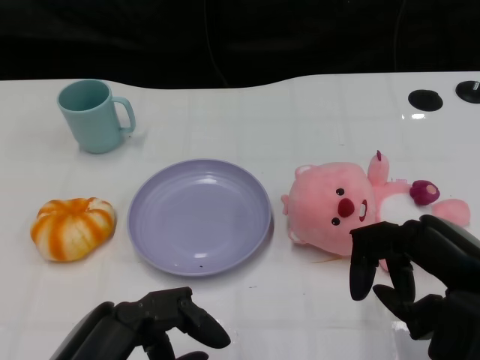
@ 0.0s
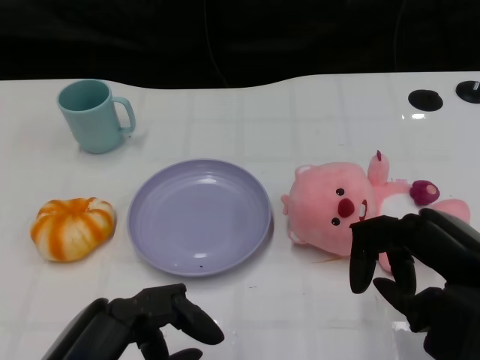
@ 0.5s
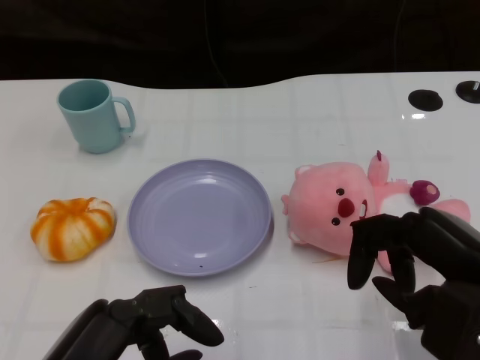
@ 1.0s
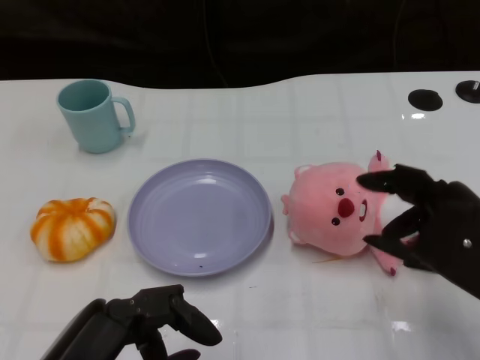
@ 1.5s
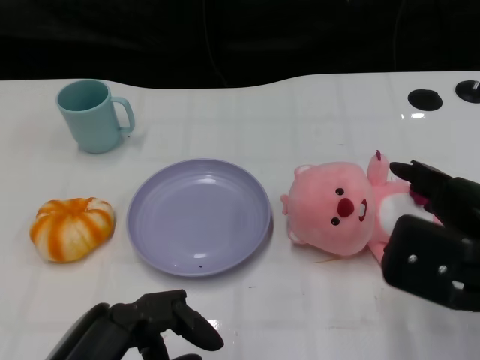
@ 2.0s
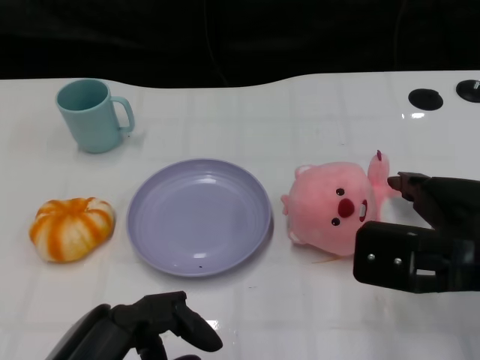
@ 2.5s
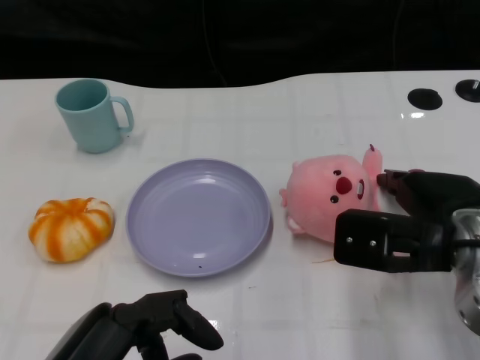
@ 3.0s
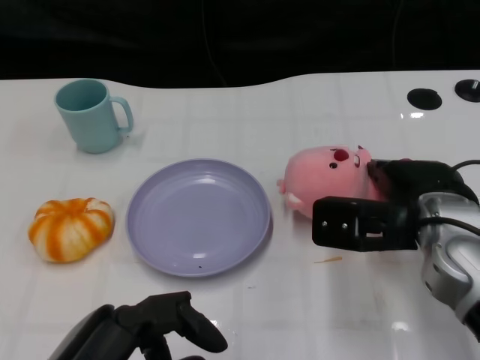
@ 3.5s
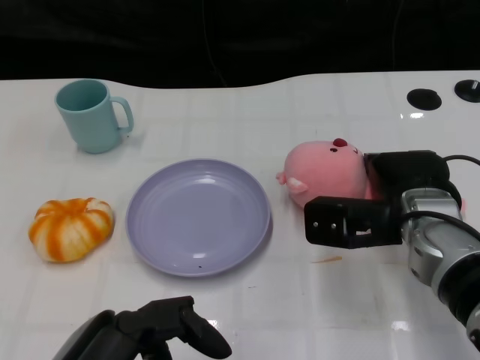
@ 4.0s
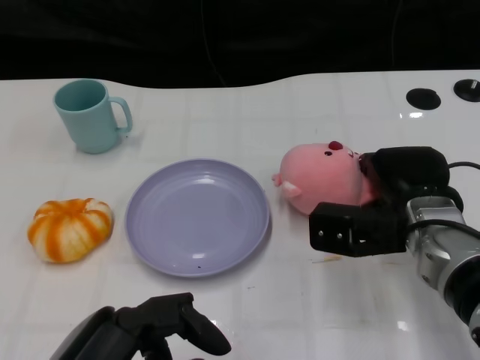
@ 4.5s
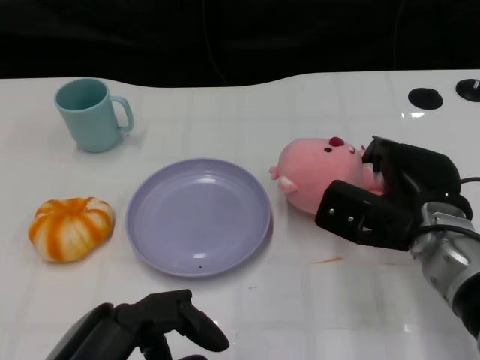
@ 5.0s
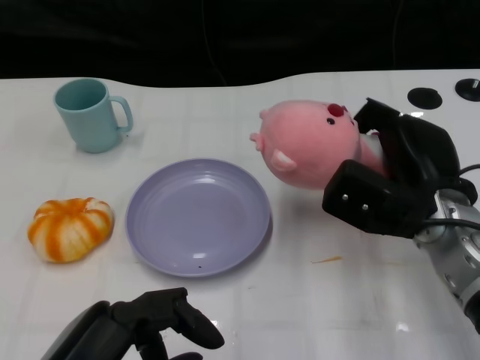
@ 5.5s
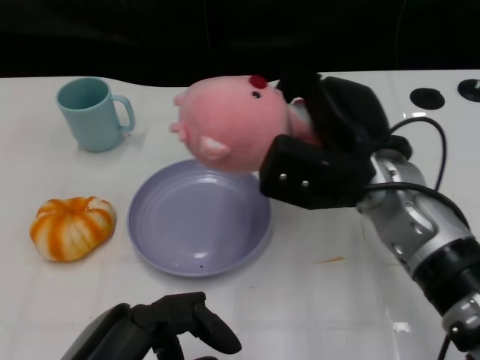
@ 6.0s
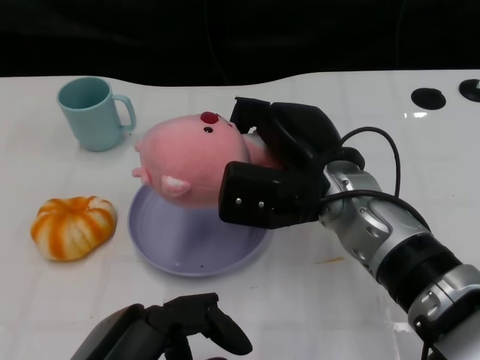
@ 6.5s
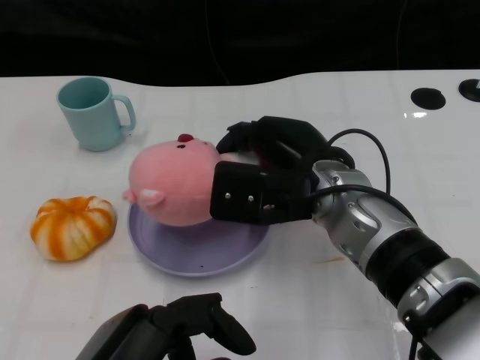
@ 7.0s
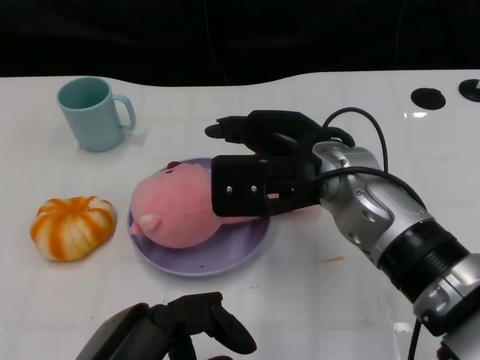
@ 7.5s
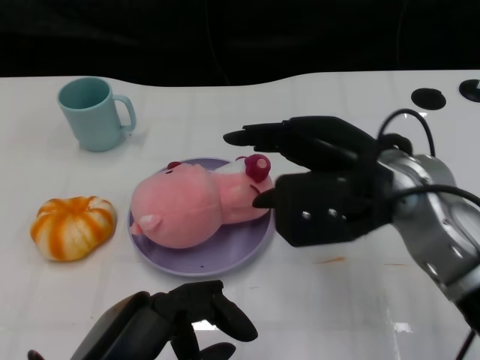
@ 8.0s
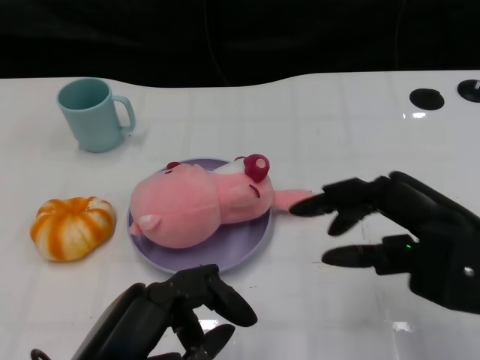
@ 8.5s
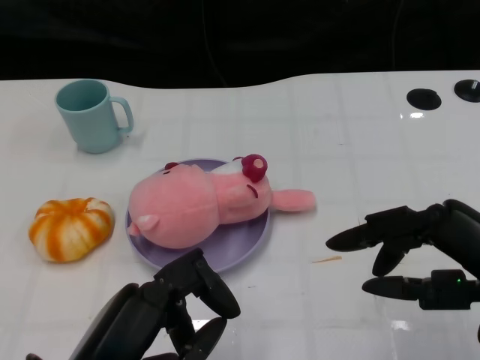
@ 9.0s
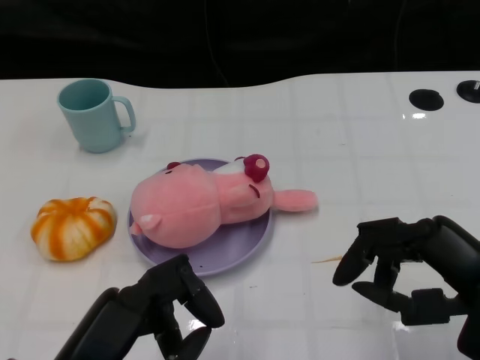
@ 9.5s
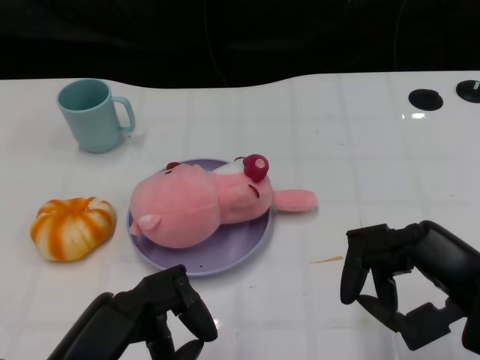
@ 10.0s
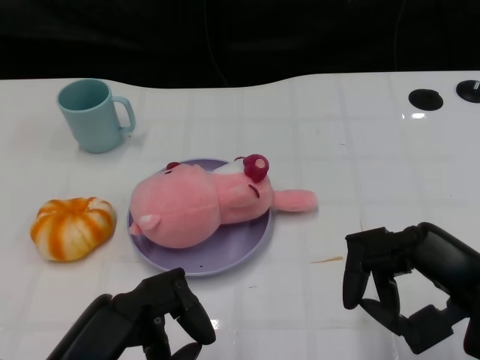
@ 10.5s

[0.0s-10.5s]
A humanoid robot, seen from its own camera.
Task of the whole recording: Pick up the doll on the other side of the plate and place it into the plate.
Step, 1.0s to 5.5s: Grasp the pink doll with the right gripper.
Step, 6.0s to 8.5s: Place the pink doll into the plate with the right gripper.
2.0s to 4.0s: The right hand shifts some 15 cm forward, downward and to the left.
4.0s to 6.5s: The right hand moves to the left, roughly 10 cm.
6.5s to 8.5s: The right hand travels to the right and backward by roughly 15 cm.
8.5s to 10.5s: The right hand moves approximately 5 cm.

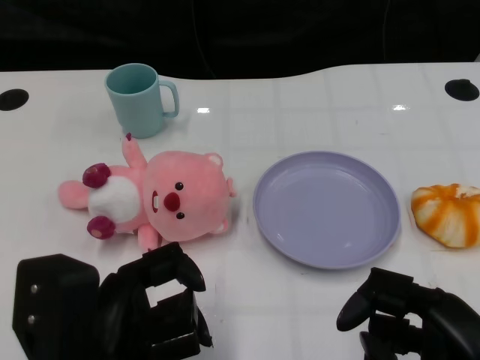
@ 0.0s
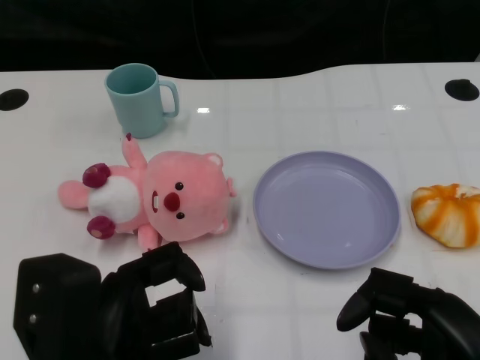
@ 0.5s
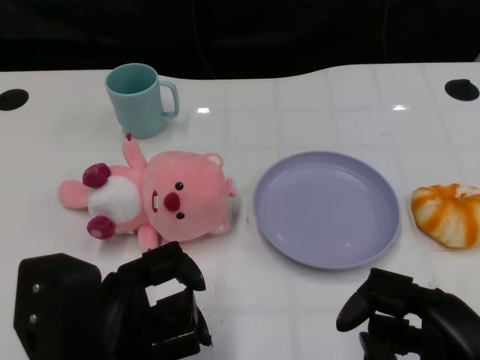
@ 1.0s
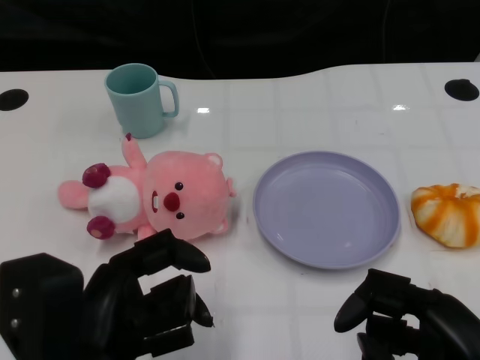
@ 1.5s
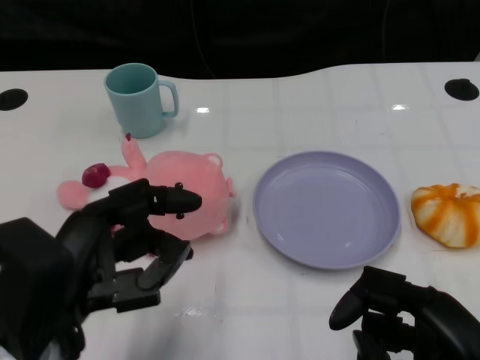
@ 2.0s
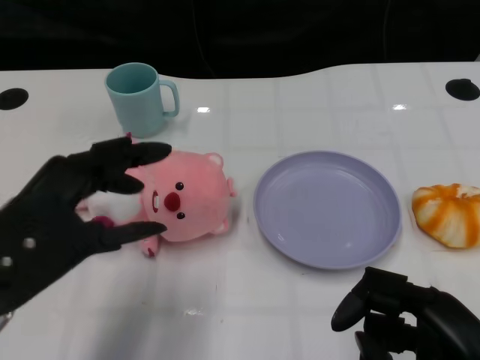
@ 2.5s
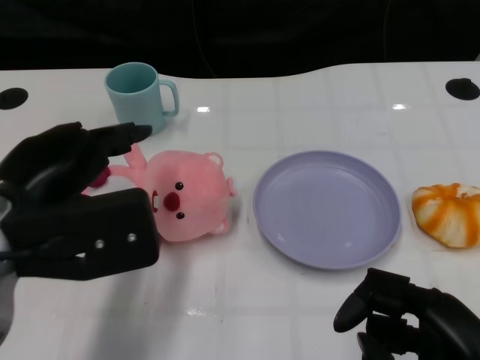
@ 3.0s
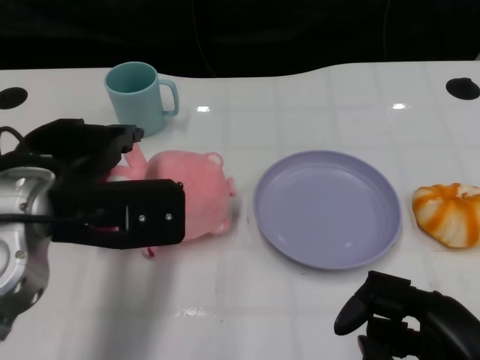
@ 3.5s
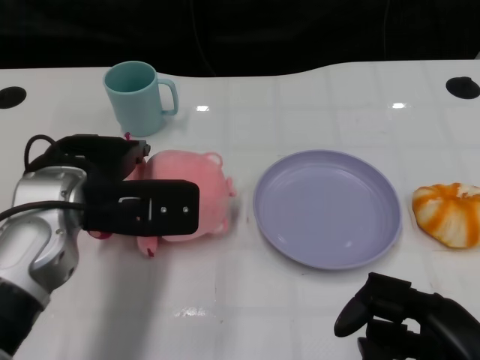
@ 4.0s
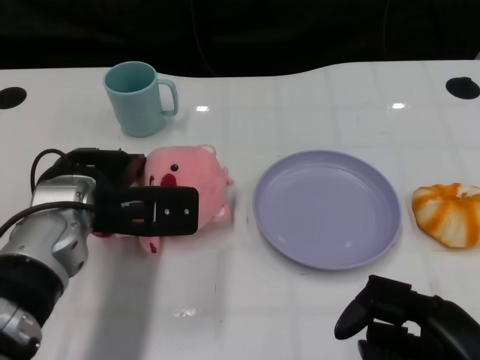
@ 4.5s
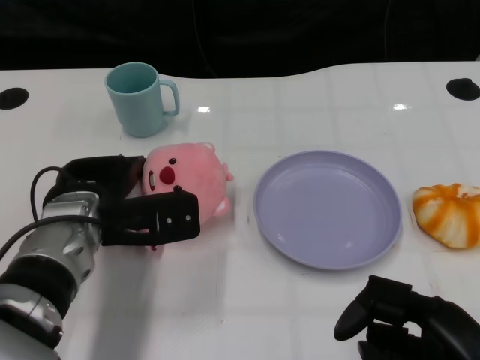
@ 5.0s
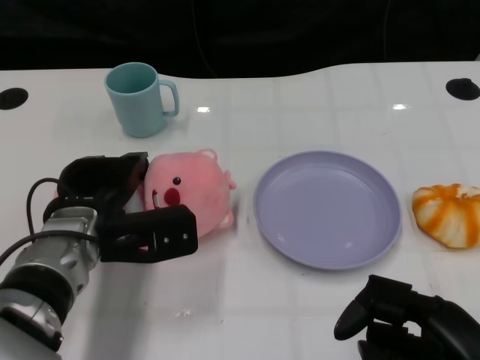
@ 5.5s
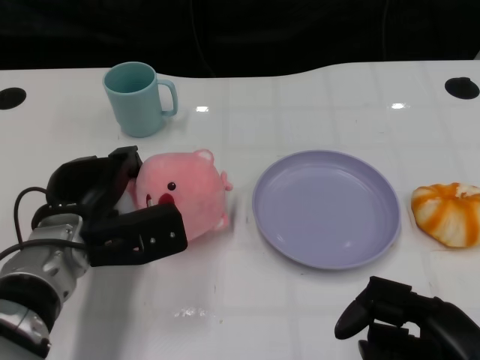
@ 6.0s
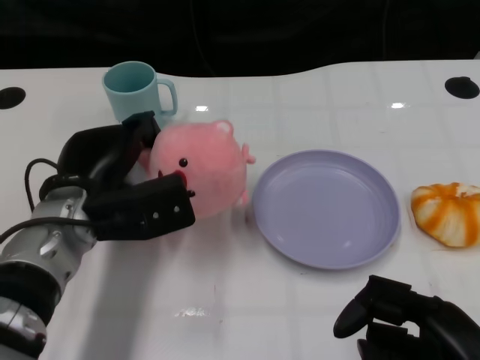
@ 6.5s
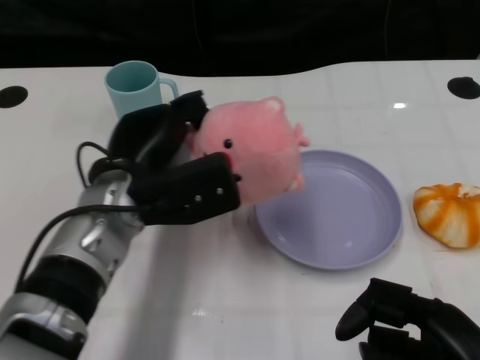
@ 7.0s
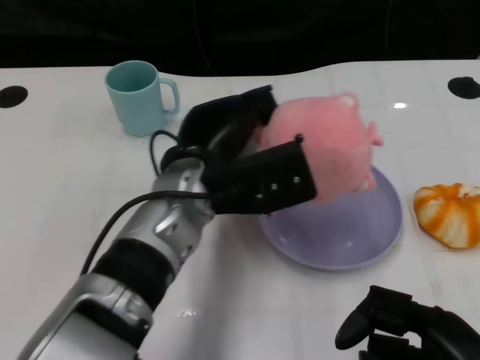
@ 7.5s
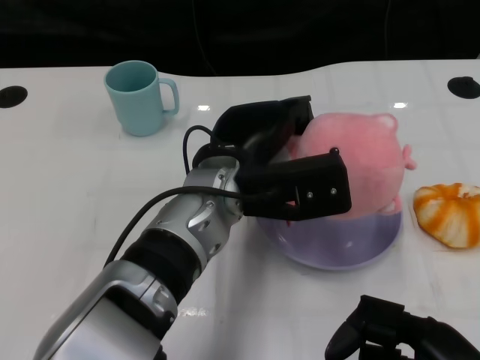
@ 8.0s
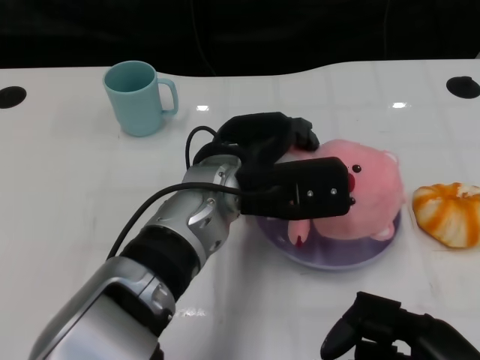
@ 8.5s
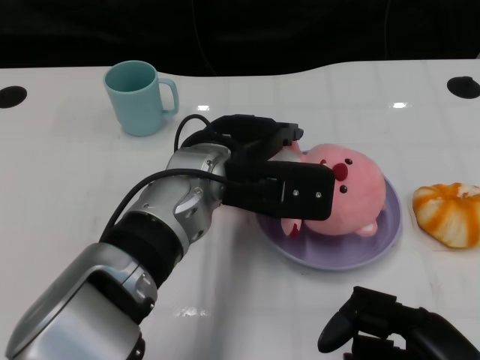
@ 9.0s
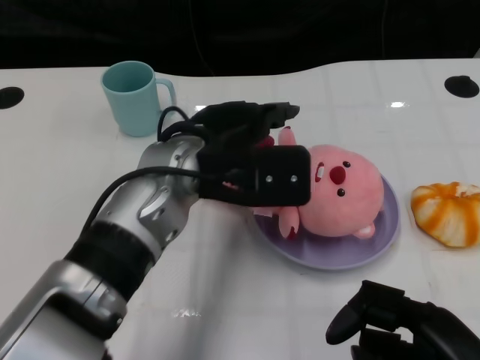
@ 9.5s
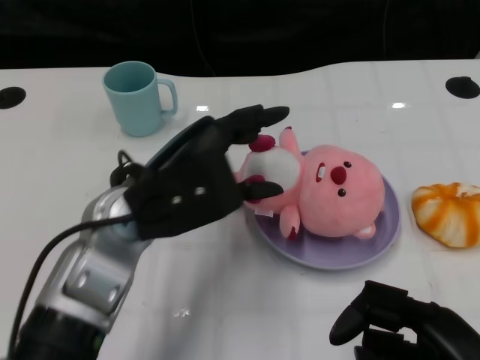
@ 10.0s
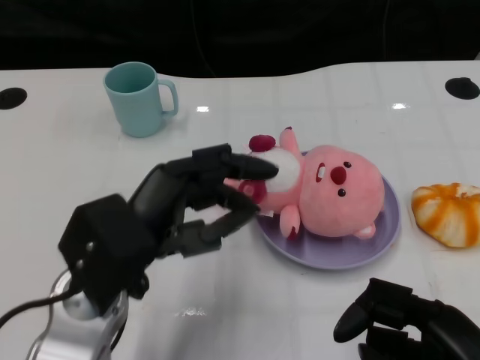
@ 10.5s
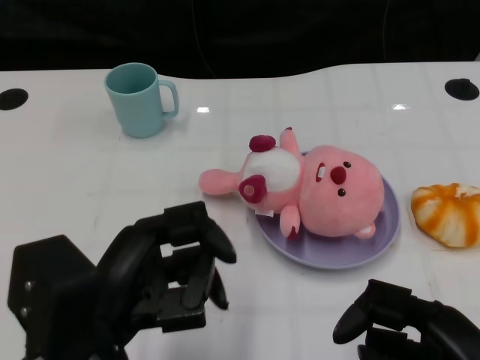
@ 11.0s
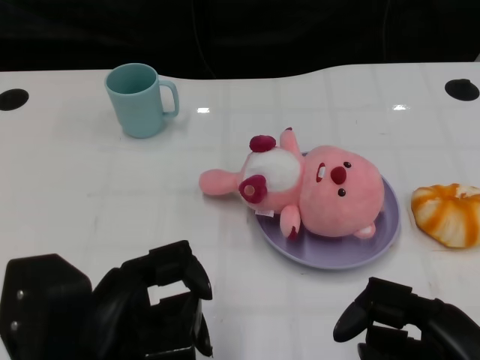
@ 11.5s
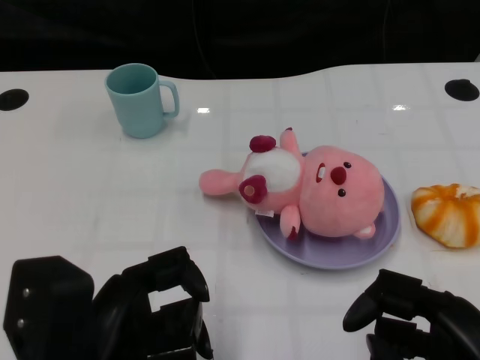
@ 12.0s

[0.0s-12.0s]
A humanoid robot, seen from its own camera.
Task of the whole recording: Pick up the doll on one side of the plate and place it into the plate.
Step, 1.5s to 6.0s: Grasp the pink doll with the left gripper.
Step, 6.5s to 9.5s: Place the pink doll into the plate with the left gripper.
2.0s to 4.0s: The left hand shifts about 15 cm forward.
4.0s to 6.0s: The left hand is displaced downward by some 10 cm.
6.0s to 8.0s: The left hand travels to the right and upward by roughly 15 cm.
8.0s to 10.0s: The left hand shifts about 10 cm to the left.
10.0s to 12.0s: The left hand travels backward by some 15 cm.

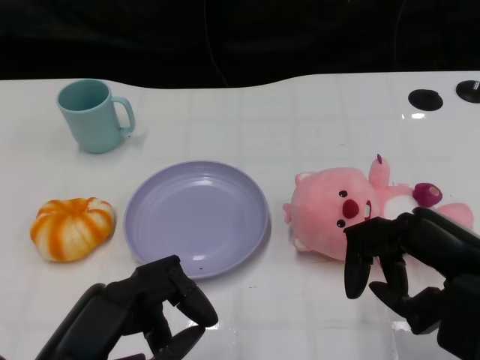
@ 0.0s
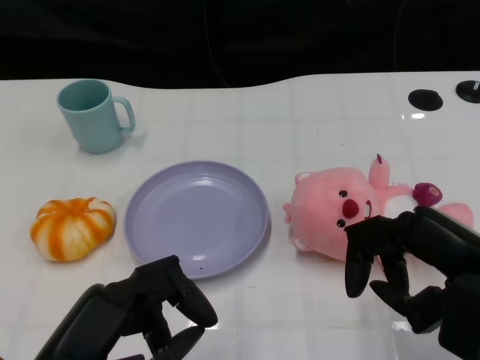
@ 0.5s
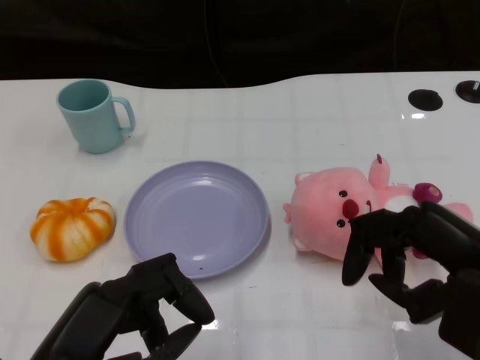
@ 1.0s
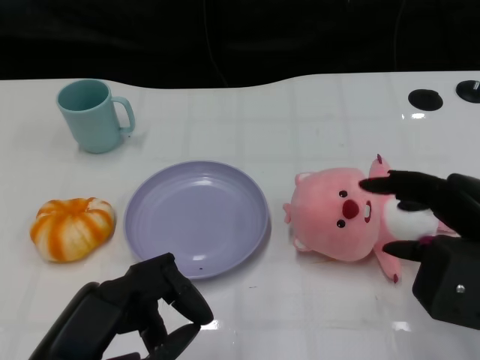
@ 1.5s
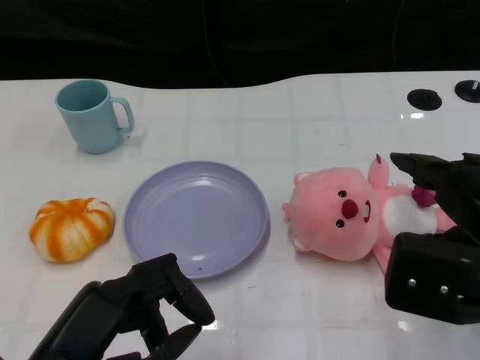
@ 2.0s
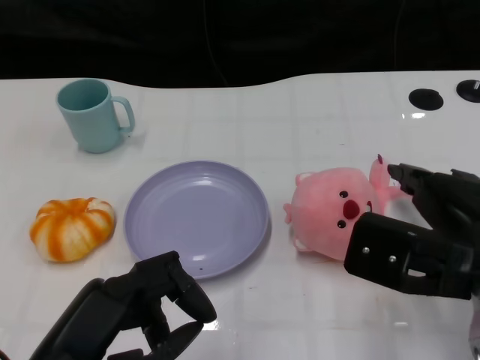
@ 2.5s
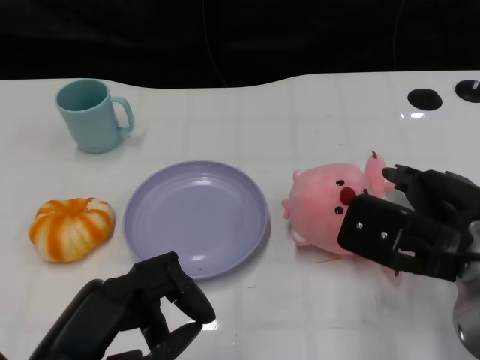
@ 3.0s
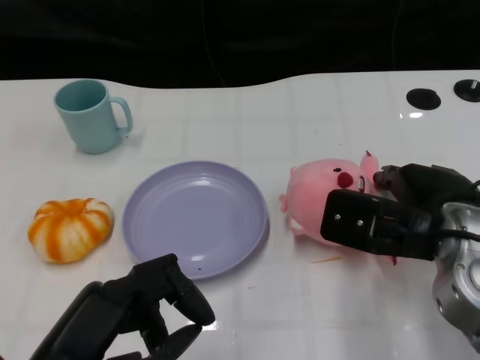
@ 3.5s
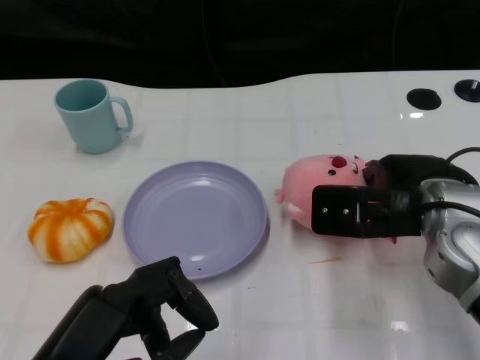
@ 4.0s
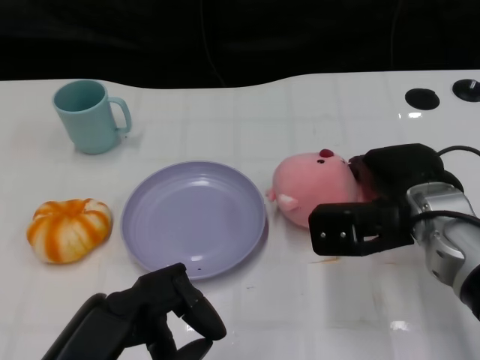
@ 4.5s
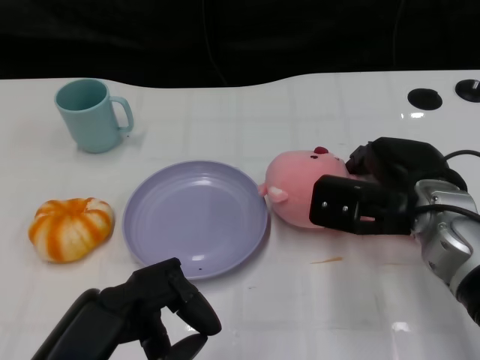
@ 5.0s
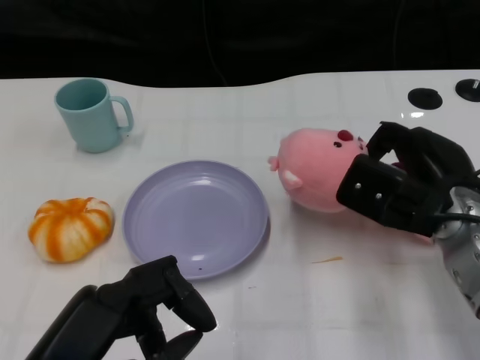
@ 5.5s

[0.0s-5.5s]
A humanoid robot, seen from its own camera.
Task of the whole recording: Pick up the doll on the other side of the plate and place it into the plate.
2.0s to 3.5s: The right hand heads forward, covering approximately 5 cm.
